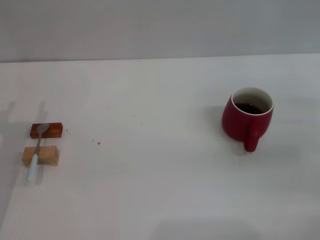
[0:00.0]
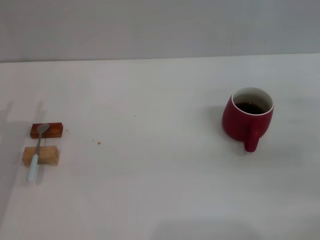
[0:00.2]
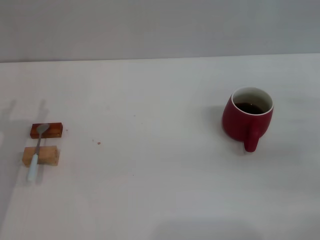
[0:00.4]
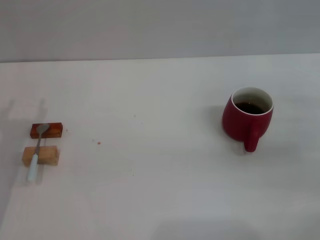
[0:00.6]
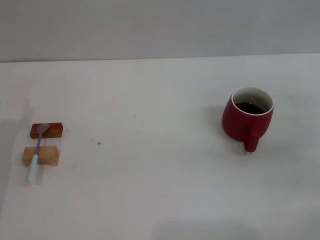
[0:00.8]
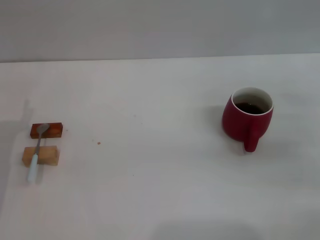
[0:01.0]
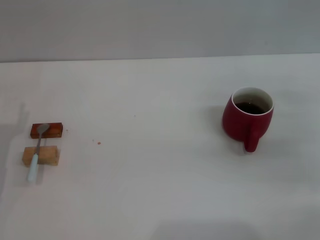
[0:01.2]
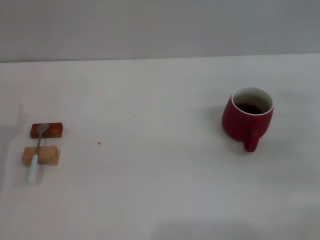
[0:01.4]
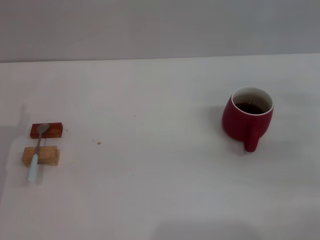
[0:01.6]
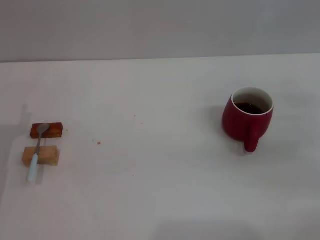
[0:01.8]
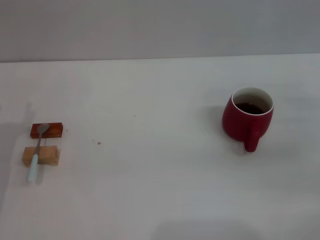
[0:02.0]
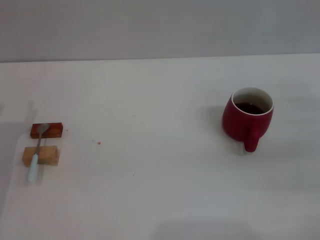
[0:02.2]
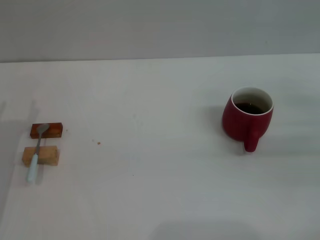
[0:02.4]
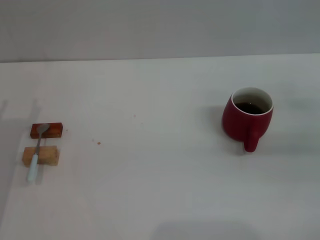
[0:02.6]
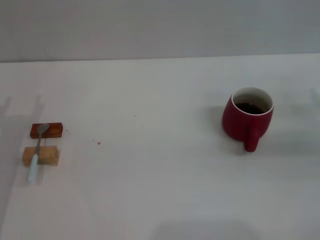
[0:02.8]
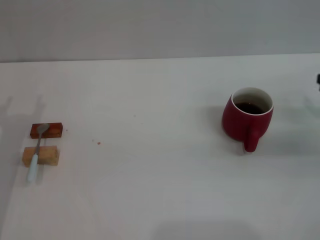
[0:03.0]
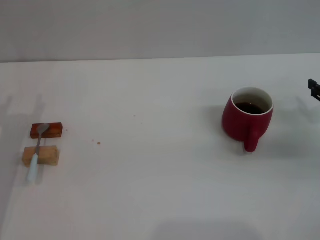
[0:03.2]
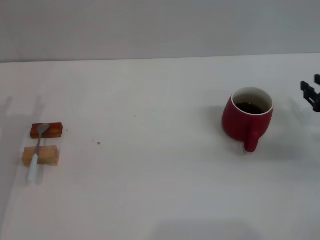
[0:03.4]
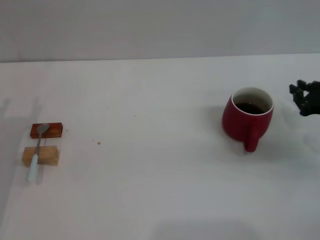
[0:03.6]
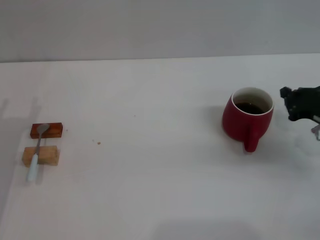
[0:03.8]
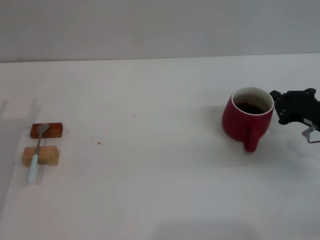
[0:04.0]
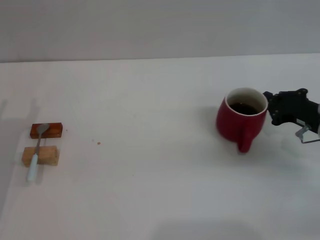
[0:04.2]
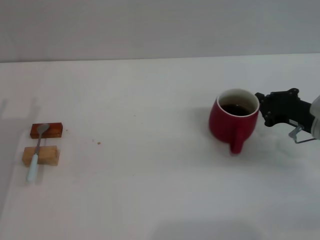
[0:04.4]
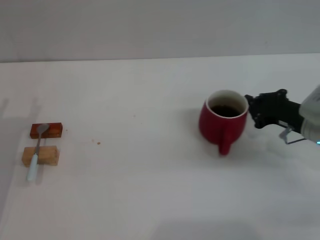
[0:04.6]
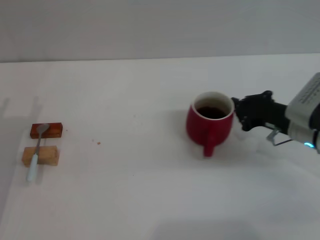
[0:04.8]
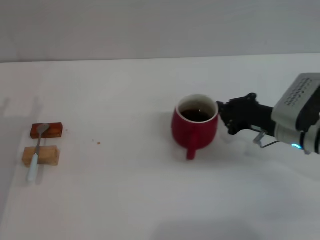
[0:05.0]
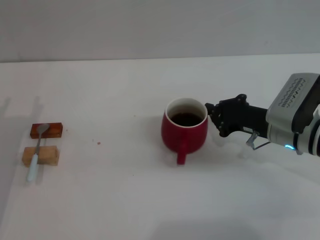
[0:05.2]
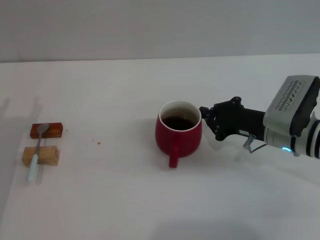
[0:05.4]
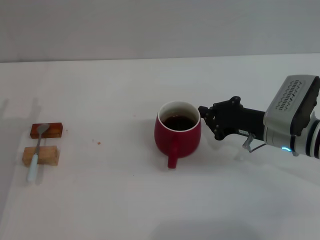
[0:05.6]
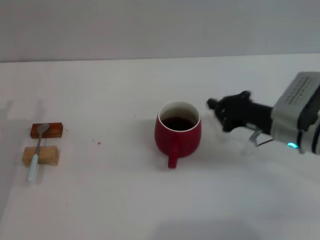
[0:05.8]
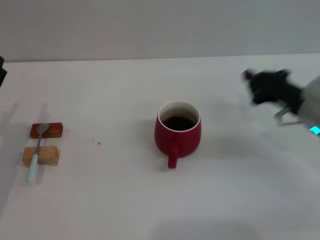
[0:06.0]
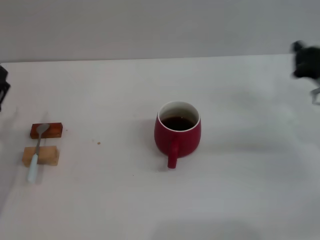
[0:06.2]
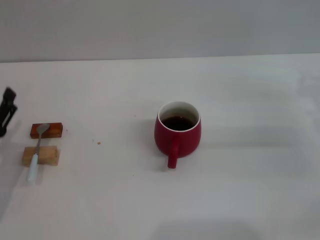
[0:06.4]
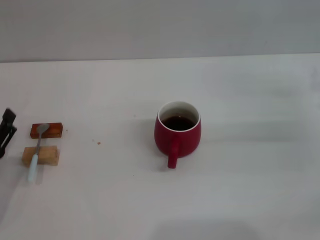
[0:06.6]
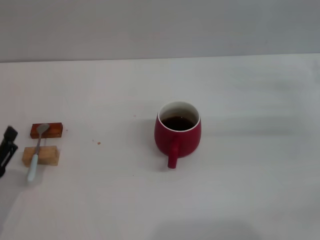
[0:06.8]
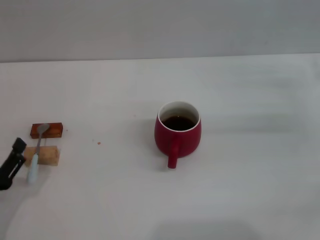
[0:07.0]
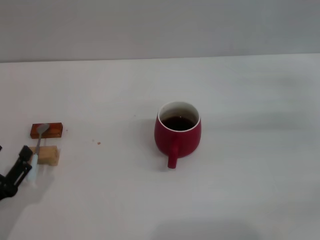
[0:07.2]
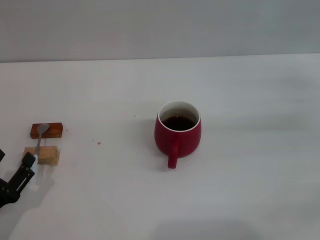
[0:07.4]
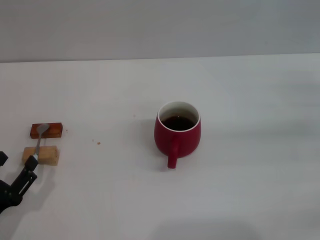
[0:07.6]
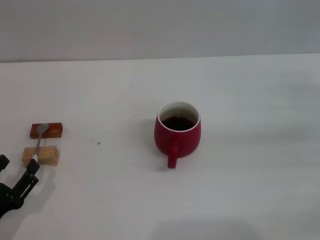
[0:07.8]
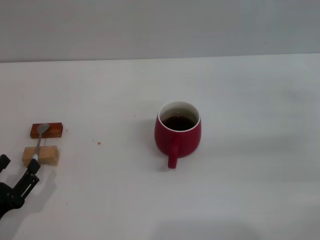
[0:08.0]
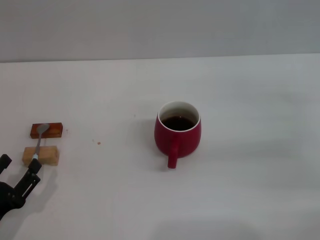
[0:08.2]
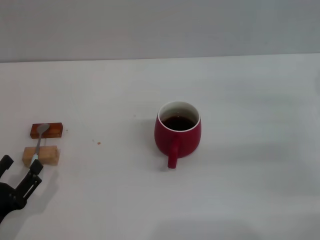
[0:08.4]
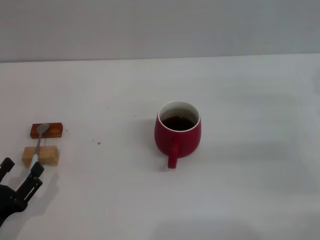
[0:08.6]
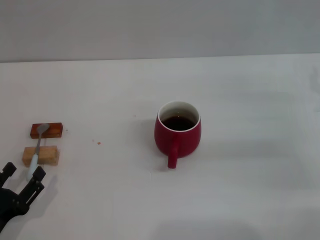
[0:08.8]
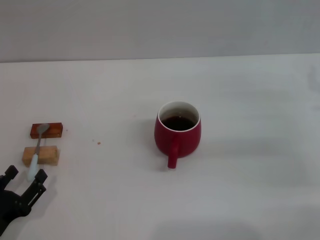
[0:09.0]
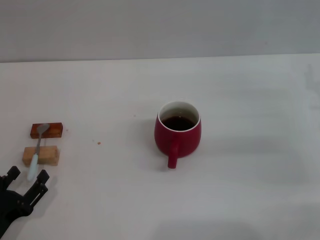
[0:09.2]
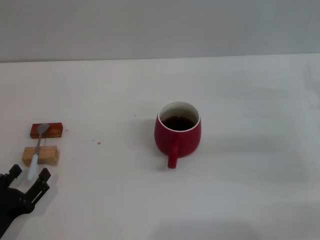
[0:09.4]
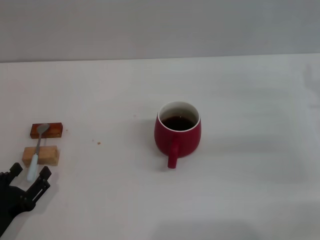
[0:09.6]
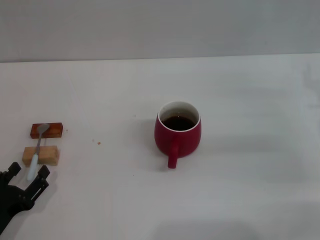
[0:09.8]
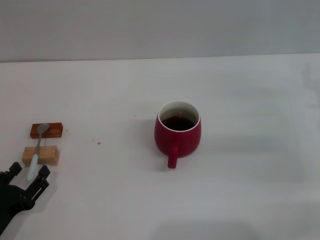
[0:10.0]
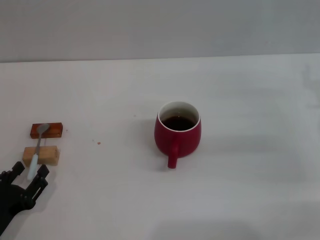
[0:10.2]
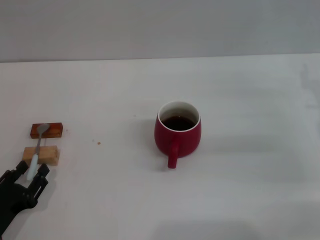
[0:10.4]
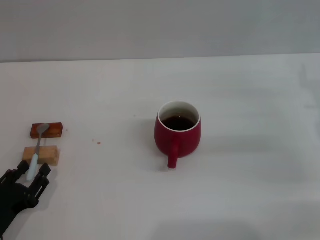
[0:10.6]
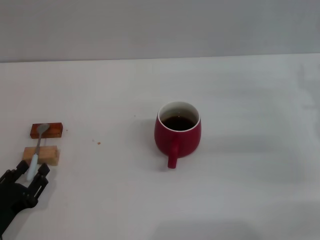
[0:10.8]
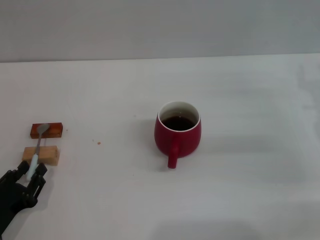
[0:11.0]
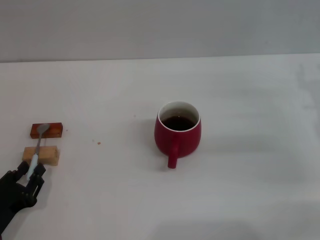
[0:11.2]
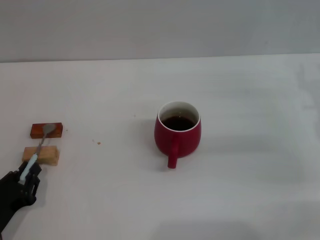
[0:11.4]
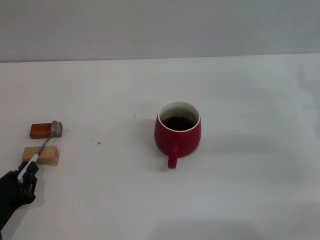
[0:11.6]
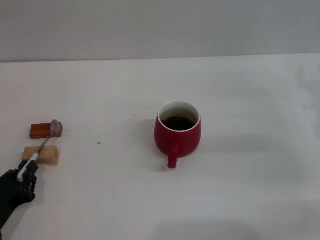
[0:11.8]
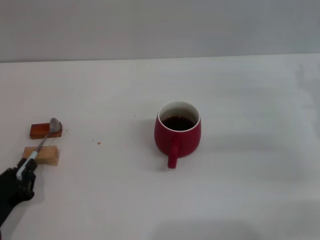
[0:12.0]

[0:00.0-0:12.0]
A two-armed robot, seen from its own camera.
Task of the whole recording: Move the red cup to the center, lift the blue spoon, stir it three times in the cup, and put the spoon into the cup.
Step, 0:00.0 to 0:05.8: Move the cup with coffee to the center of view with the right gripper.
0:03.0 to 0:04.4: The right gripper goes about 10 cm to the left, and closes up.
0:06.0 to 0:07.6: The left gripper goes approximately 15 cm backward and downward; the right gripper heads to the right and upward, covering roughly 15 cm, and opens.
0:09.0 to 0:10.4: There are only small adjustments of the grippers.
0:10.4 to 0:12.0: The left gripper closes its fingers.

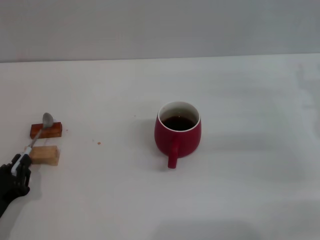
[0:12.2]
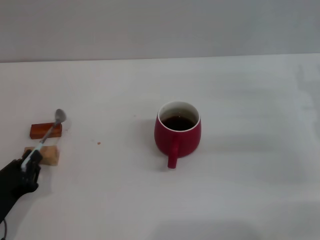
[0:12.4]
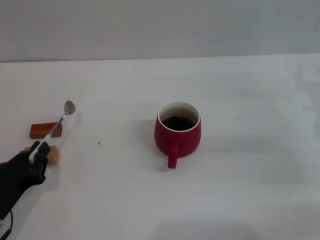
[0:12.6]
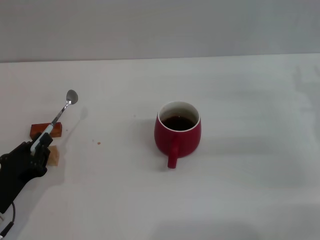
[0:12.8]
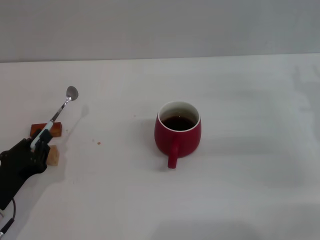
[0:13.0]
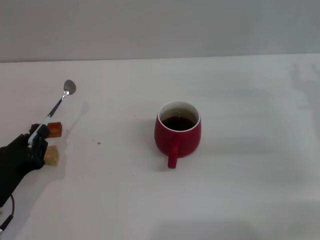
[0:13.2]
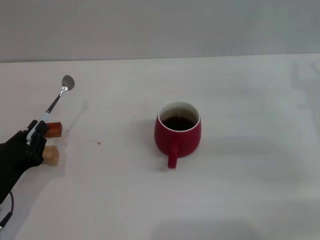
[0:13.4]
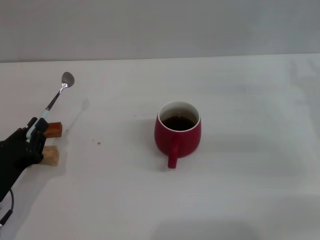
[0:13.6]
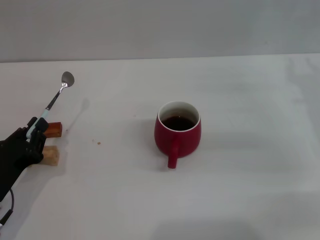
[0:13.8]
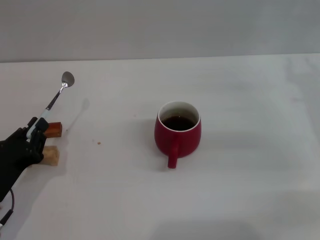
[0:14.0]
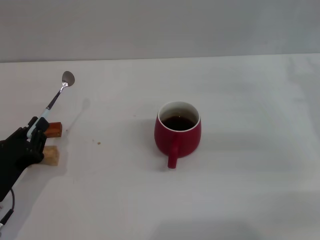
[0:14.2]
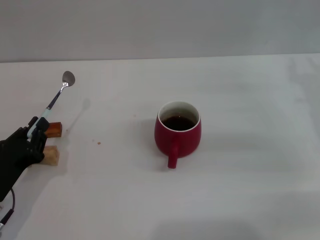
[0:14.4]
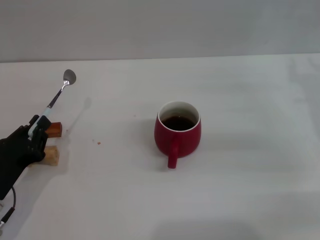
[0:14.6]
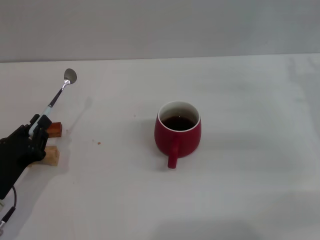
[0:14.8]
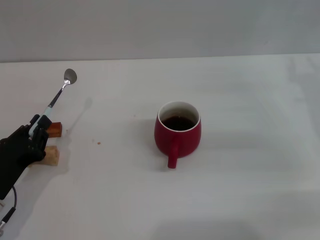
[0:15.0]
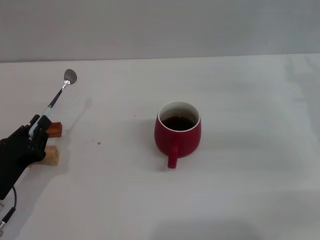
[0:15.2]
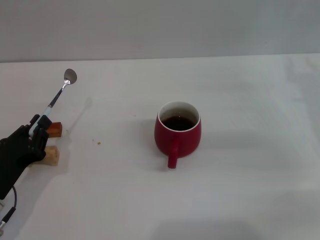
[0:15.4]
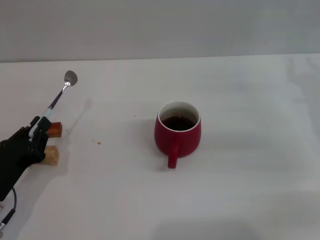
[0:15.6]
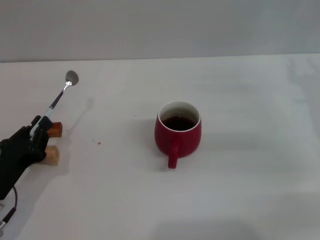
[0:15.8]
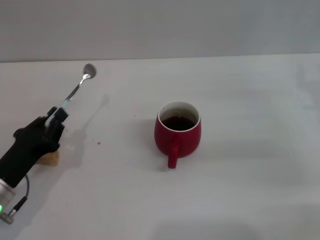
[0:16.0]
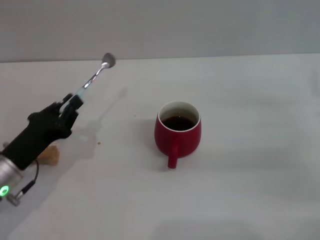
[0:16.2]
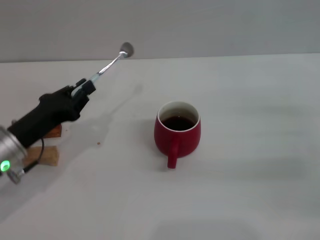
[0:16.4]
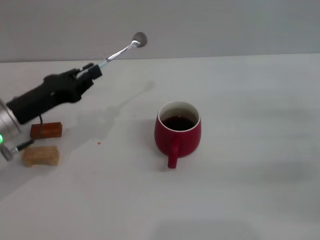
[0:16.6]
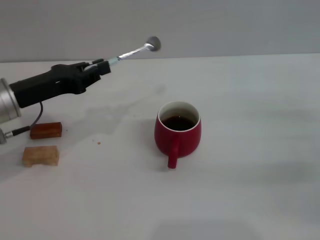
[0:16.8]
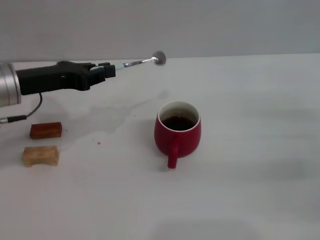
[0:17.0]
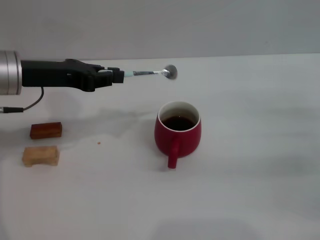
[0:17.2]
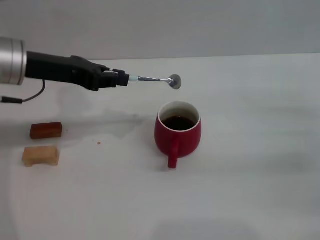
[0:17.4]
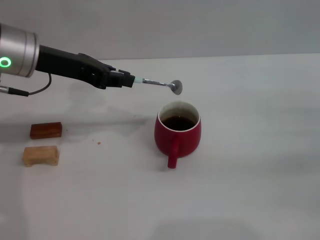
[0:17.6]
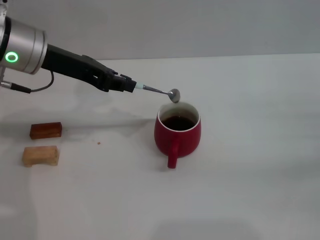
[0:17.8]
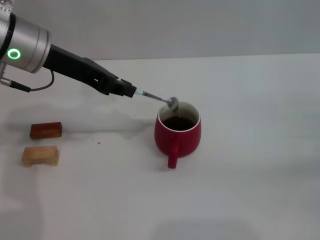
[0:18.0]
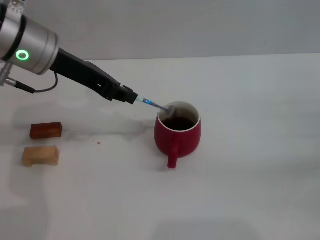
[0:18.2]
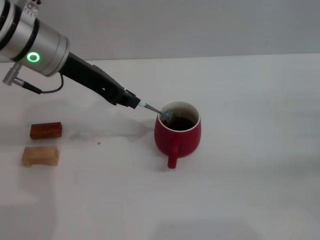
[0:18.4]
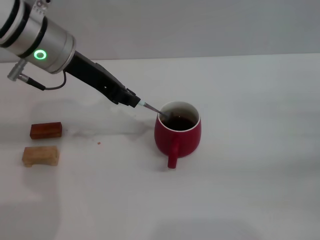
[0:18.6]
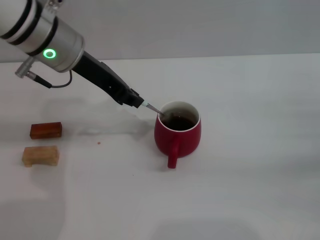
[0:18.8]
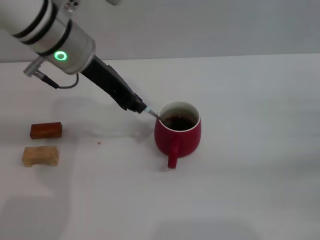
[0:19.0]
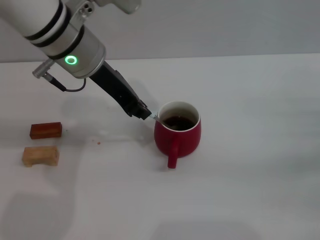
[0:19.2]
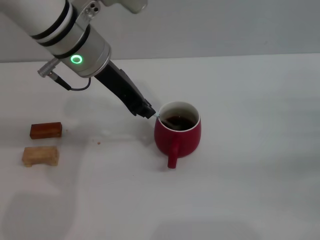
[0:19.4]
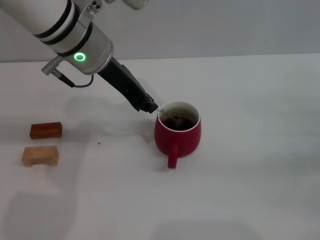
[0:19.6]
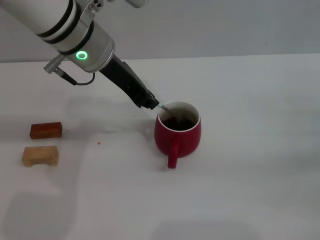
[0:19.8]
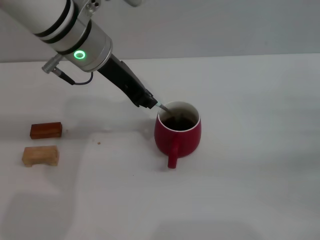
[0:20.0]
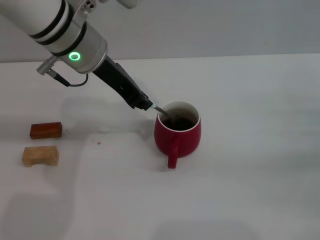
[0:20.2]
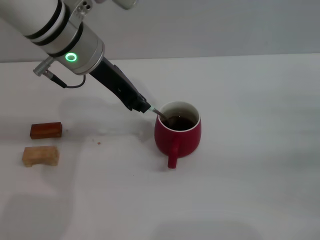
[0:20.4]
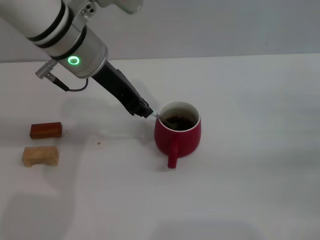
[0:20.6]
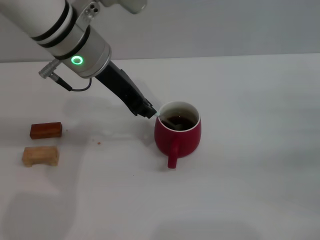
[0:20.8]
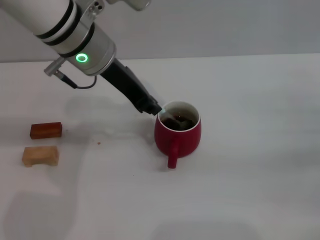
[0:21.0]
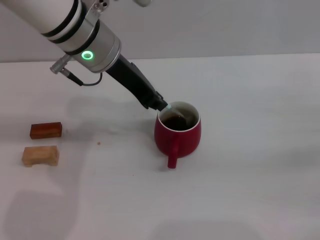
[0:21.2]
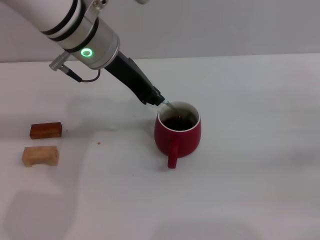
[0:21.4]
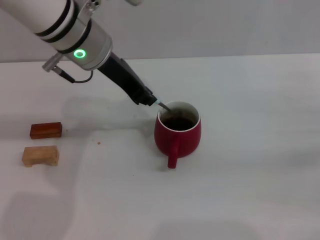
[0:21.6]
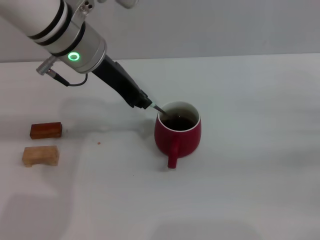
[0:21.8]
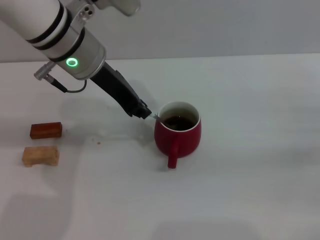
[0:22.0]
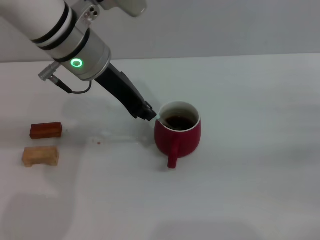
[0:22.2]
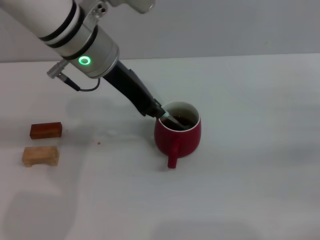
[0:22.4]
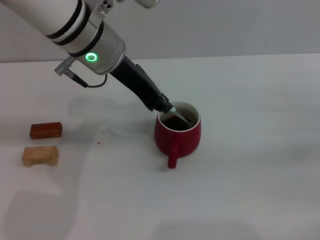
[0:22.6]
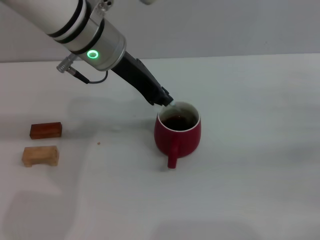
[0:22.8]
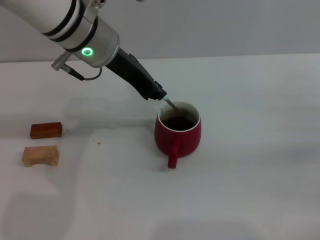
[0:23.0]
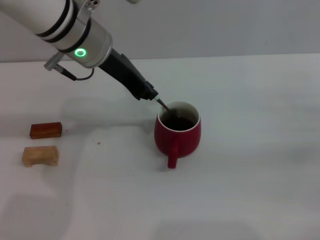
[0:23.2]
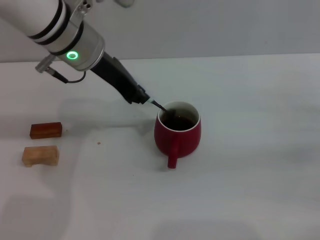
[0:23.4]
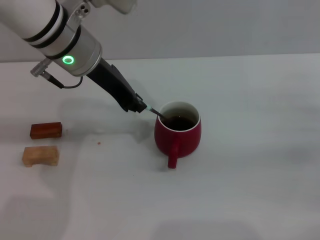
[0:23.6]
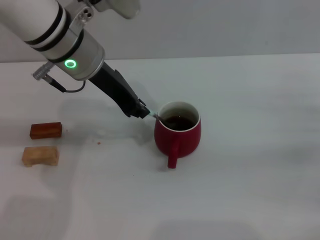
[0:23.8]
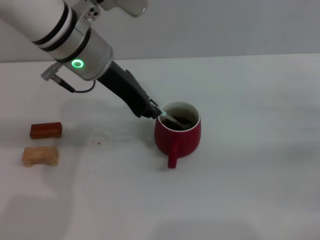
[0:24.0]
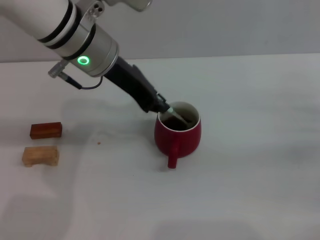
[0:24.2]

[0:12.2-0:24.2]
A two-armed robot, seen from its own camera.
Task of the whole recording: Move the red cup to the center, lift the blue spoon, stir it three times in the cup, and put the spoon into the cup.
0:12.2 to 0:13.8: The grippers move only a little.
0:13.8 to 0:15.2: Both grippers stay about where they are.
0:15.2 to 0:16.6: The right gripper shifts some 10 cm backward and to the right. The left gripper travels forward and upward by some 15 cm.
0:16.6 to 0:18.2: The left gripper goes roughly 15 cm upward, to the right and forward.
0:18.2 to 0:19.8: The left gripper heads to the right, covering some 5 cm.
0:19.8 to 0:21.2: Both grippers stay about where they are.
0:21.2 to 0:24.2: The grippers make only small movements.
